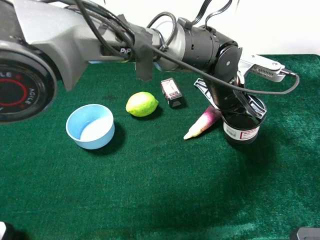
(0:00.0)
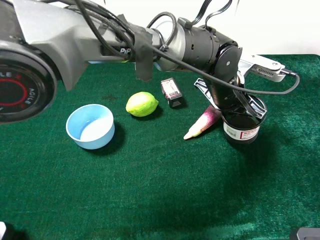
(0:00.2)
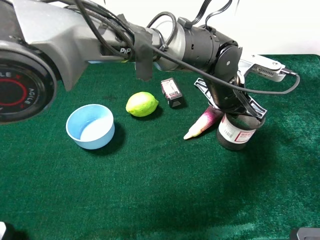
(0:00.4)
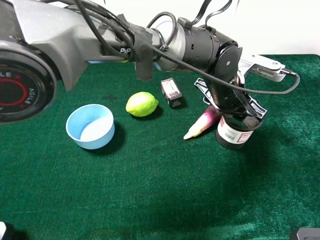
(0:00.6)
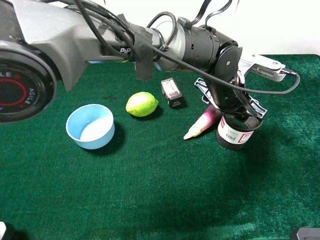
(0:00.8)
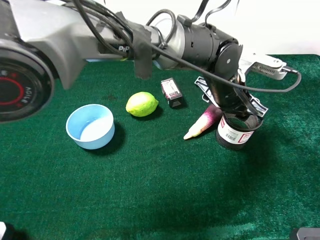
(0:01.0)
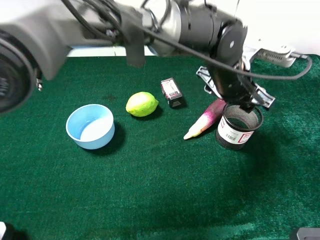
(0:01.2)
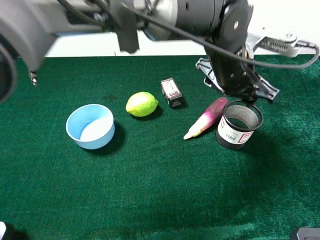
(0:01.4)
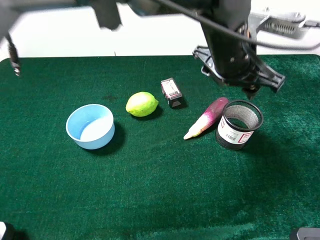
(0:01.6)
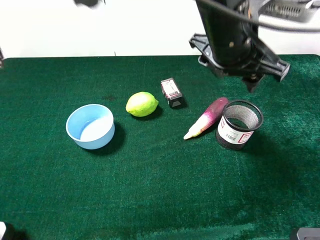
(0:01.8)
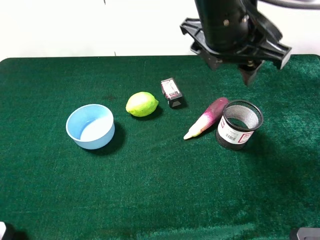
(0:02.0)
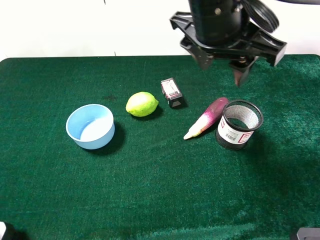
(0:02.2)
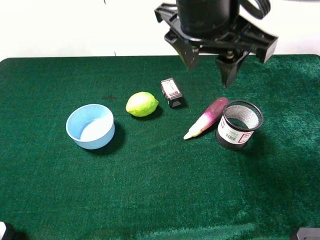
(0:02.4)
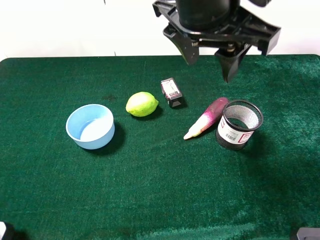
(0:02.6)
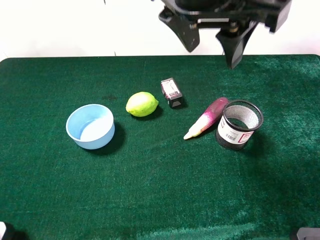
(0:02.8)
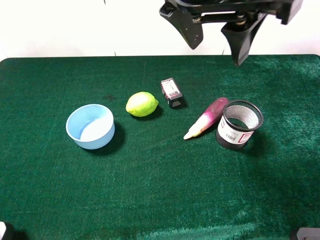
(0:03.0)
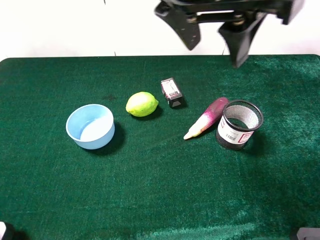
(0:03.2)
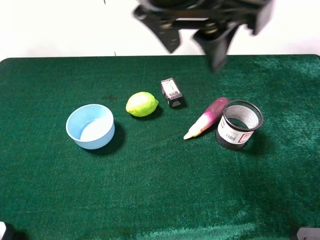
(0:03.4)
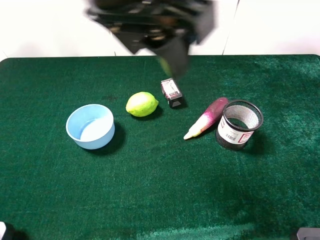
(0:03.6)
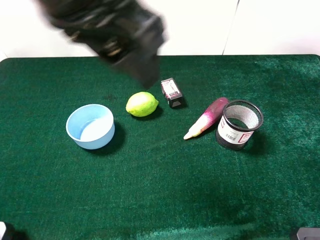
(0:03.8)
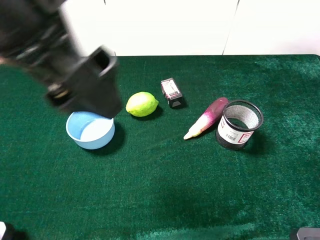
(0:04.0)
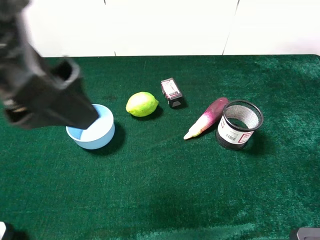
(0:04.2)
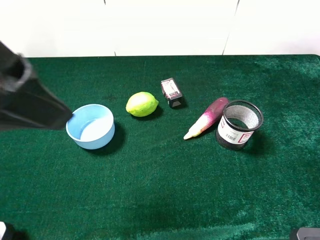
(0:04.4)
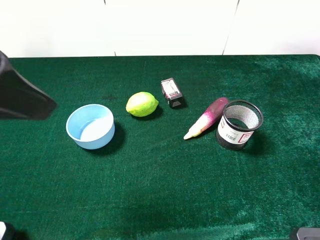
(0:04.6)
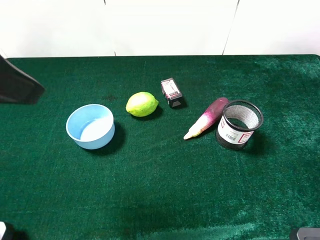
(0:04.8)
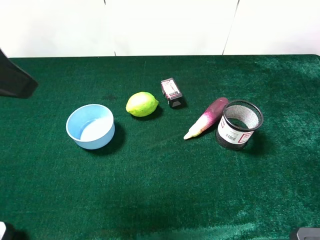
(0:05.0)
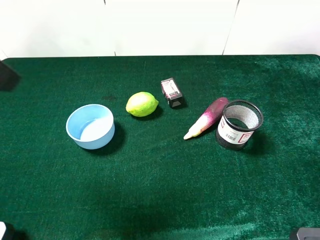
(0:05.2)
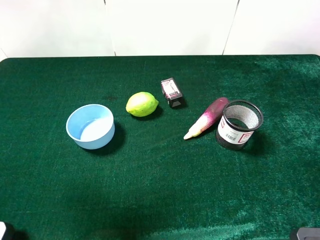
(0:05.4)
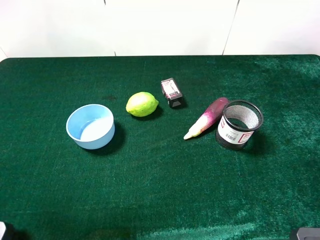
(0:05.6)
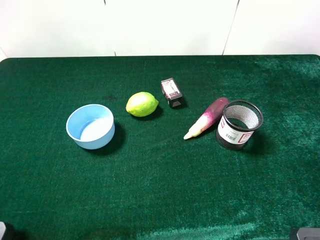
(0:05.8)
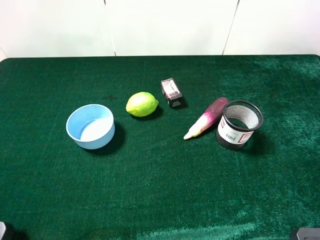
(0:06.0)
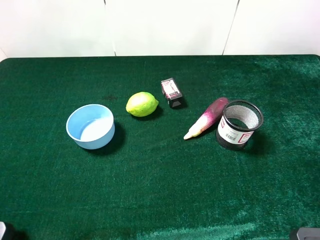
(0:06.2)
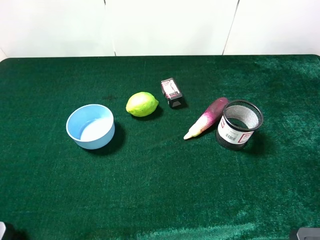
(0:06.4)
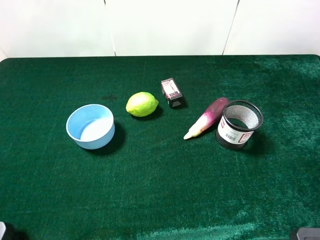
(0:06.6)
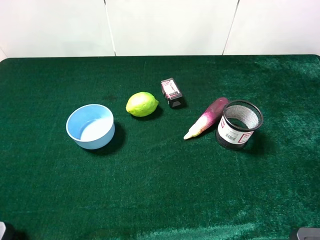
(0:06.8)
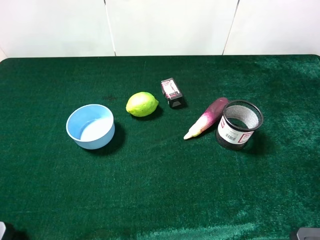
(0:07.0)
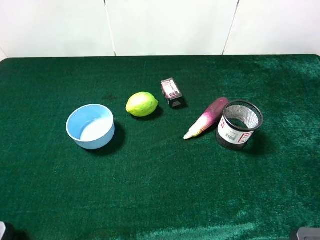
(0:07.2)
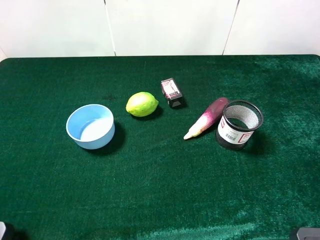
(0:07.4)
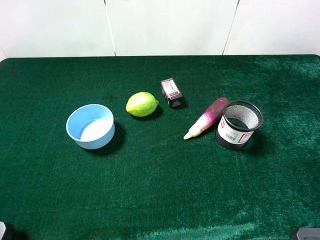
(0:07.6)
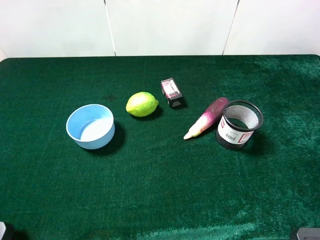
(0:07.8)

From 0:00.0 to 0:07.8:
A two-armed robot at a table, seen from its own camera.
Task of the whole recording: the gripper move the object.
From 0:00.0 to 0:01.6: The left gripper shifts about 10 cm upward, and opens up.
From 0:01.6 to 0:03.2: The left gripper heads upward, to the left and backward, covering some 15 cm.
From 0:03.2 to 0:04.6: The left gripper goes approximately 20 cm to the left and backward, and opens.
From 0:04.6 to 0:06.2: The left gripper goes approximately 20 cm to the left, downward and backward.

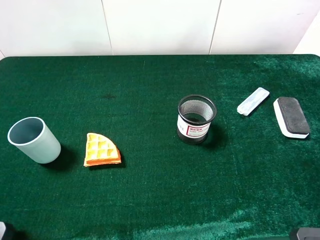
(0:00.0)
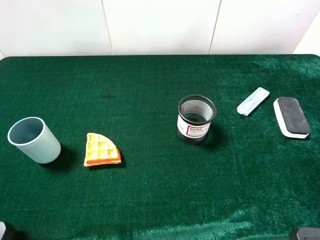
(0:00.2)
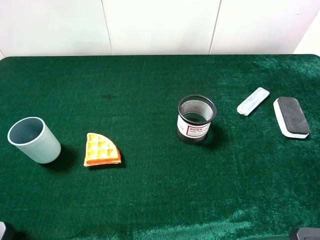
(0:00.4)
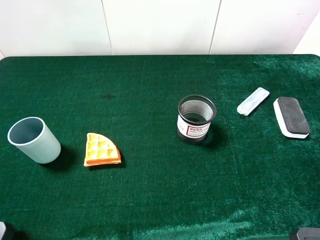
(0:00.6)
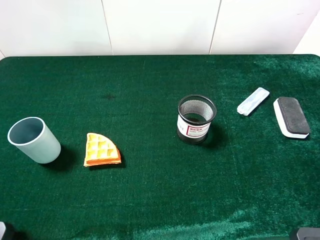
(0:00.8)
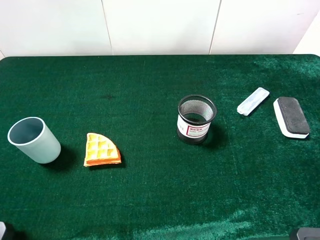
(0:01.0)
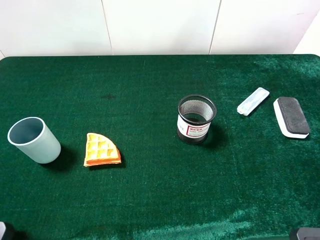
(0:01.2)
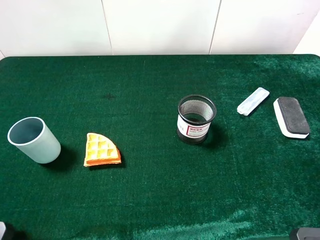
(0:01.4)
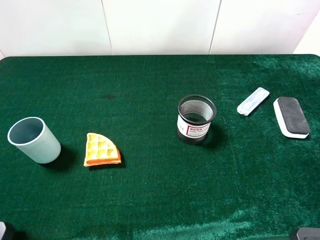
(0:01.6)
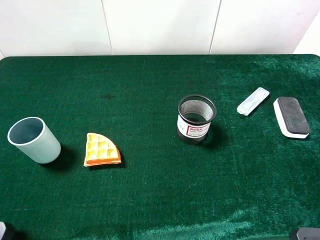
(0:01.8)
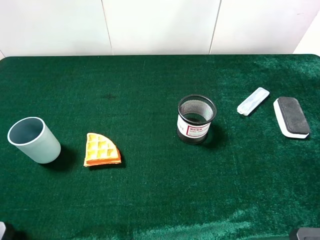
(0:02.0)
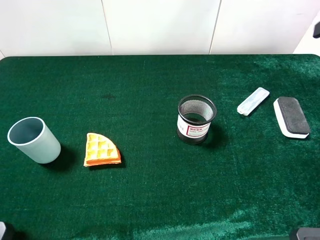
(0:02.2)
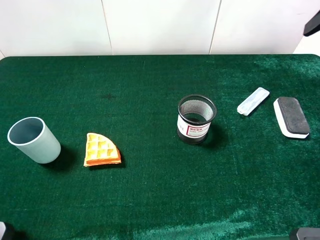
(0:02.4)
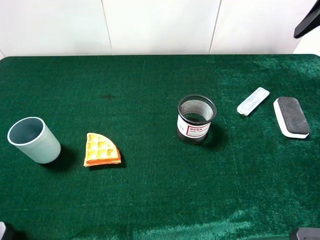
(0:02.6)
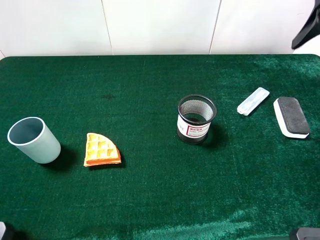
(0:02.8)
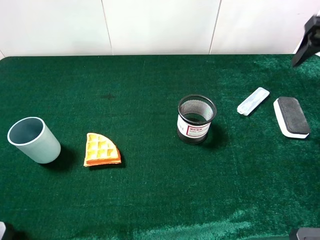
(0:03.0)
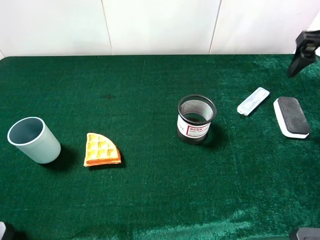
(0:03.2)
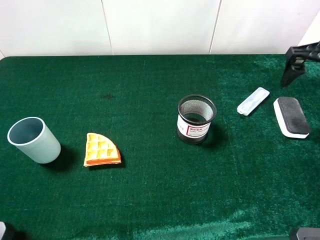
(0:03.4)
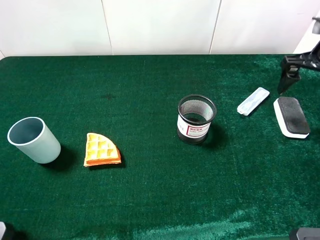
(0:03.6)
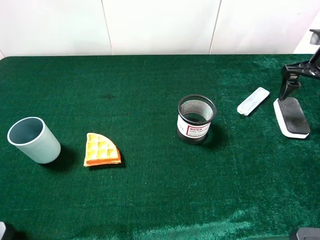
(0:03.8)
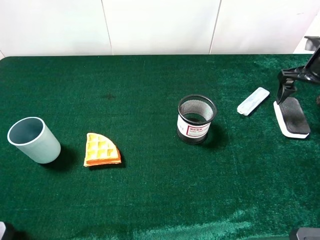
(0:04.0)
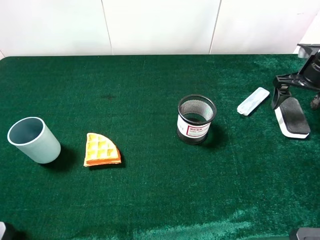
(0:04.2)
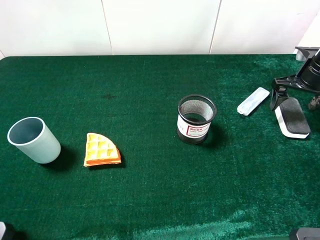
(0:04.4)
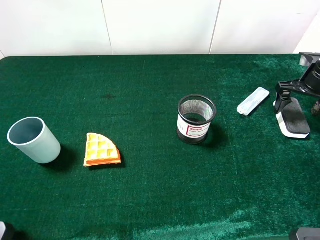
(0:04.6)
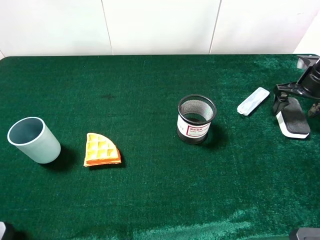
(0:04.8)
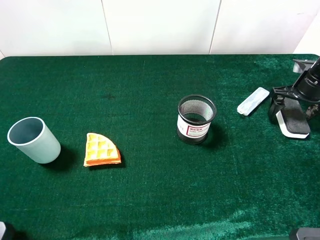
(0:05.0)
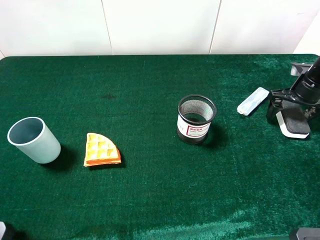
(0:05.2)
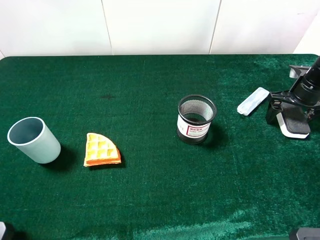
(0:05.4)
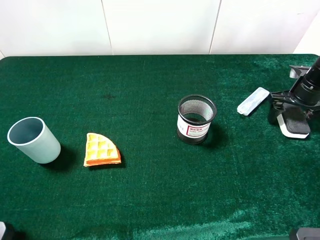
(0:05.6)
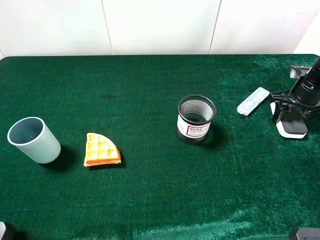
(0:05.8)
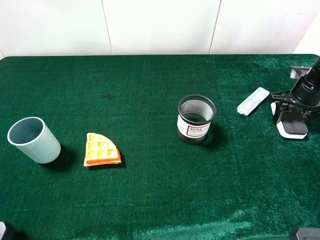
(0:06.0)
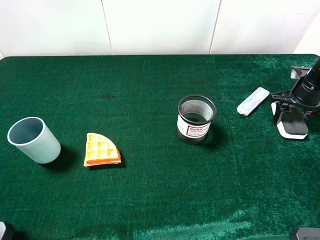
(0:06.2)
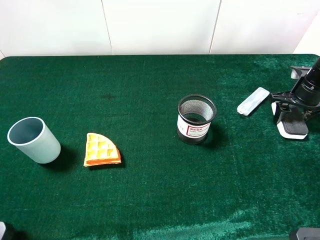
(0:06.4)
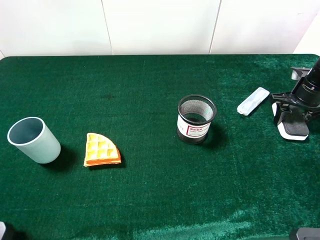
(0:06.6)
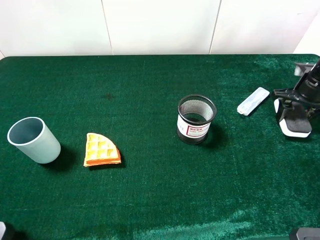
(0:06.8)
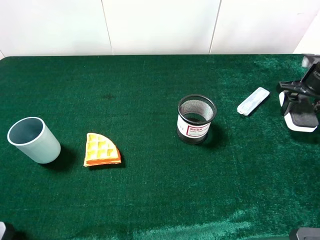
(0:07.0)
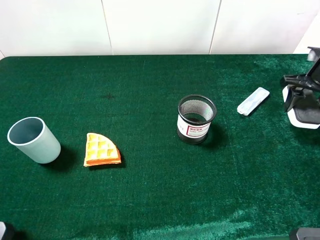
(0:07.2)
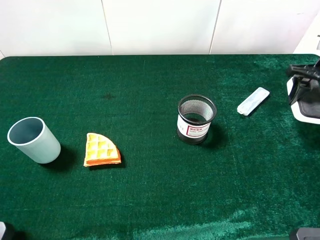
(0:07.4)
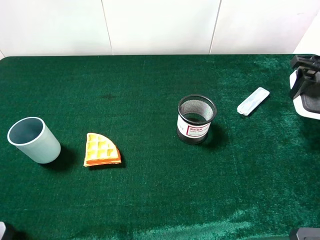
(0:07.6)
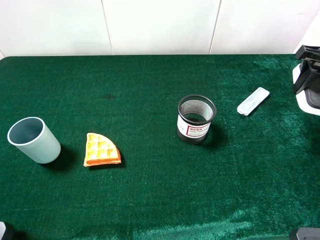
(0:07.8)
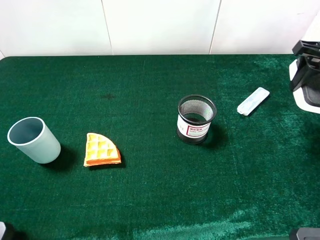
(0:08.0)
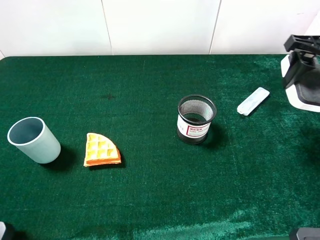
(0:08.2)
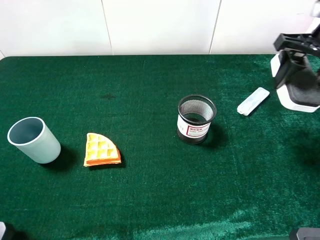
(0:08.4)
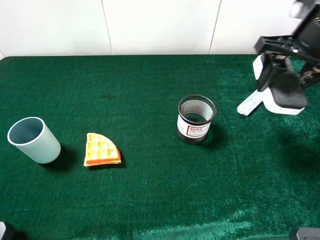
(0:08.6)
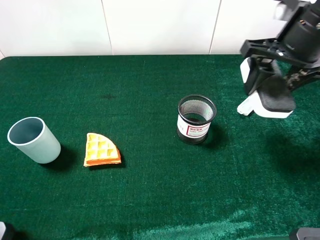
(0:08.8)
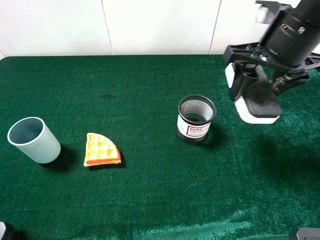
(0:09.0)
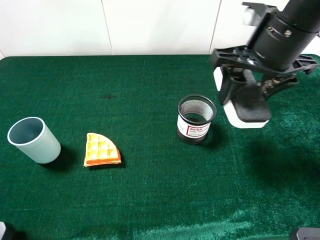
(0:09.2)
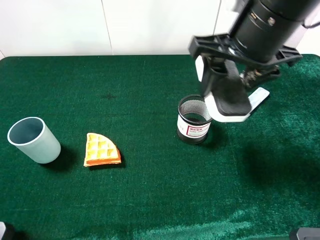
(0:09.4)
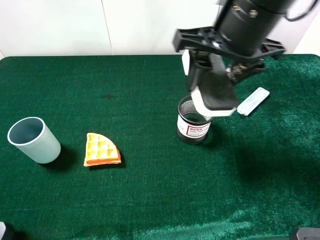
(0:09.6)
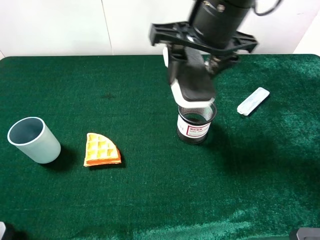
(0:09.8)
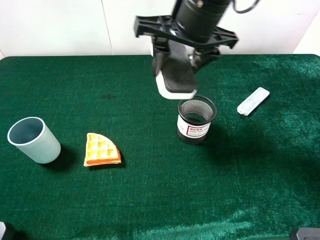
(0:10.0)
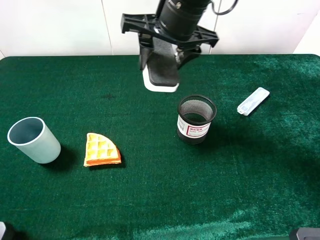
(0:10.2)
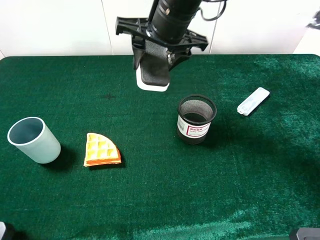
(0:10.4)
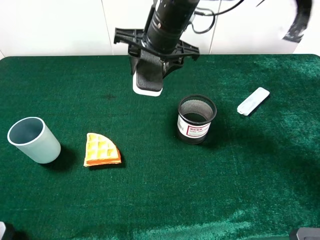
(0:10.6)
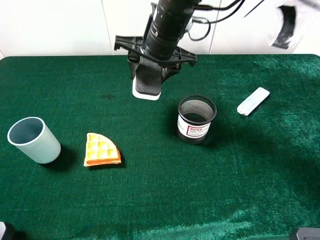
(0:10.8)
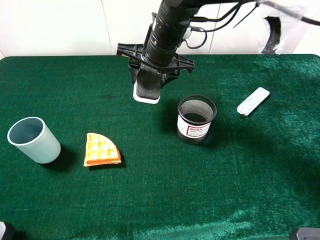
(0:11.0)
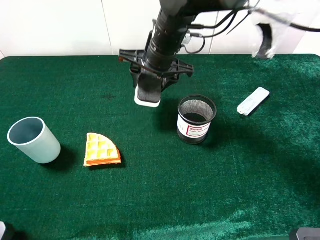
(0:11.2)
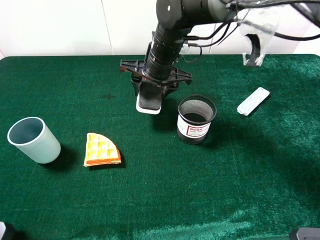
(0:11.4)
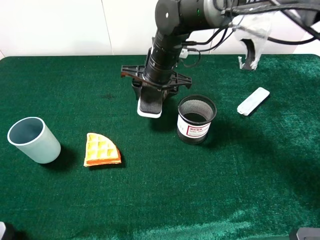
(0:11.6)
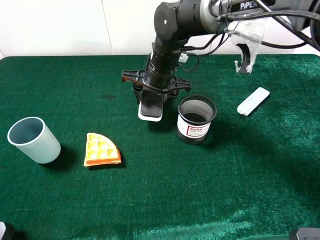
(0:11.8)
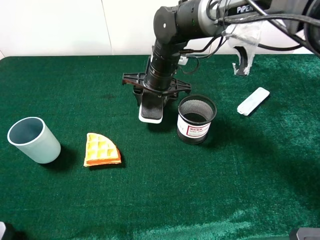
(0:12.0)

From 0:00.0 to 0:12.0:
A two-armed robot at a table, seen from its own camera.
Task of the whole recording: the gripper move the object.
Step, from 0:00.0 to 0:06.0: Grasp the white blackboard earser with the right gripper.
From 0:01.6 to 0:03.0: The right gripper is displaced forward by approximately 20 cm.
From 0:03.0 to 0:04.4: The right gripper heads downward and forward, covering about 15 cm.
From 0:04.4 to 0:06.0: The right gripper shifts by approximately 5 cm, and closes its fingers.
From 0:06.0 to 0:07.6: The right gripper is displaced upward by roughly 10 cm.
From 0:07.6 to 0:09.0: The right gripper moves to the left and backward, approximately 20 cm.
From 0:09.0 to 0:10.4: The right gripper travels to the left and forward by about 15 cm.
From 0:10.4 to 0:12.0: The right gripper goes roughly 15 cm downward.

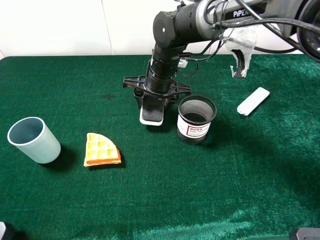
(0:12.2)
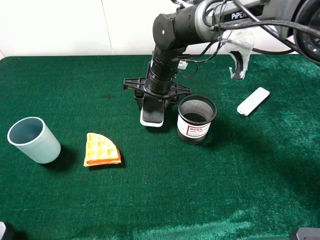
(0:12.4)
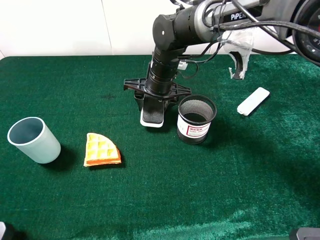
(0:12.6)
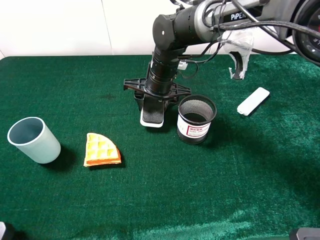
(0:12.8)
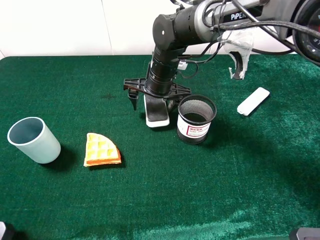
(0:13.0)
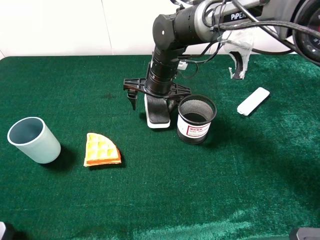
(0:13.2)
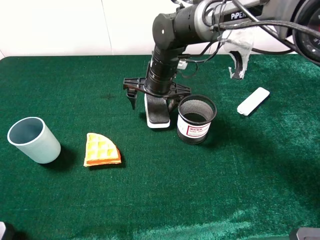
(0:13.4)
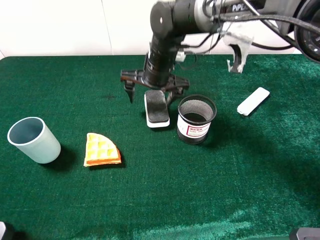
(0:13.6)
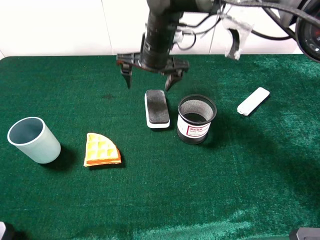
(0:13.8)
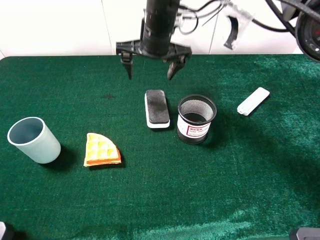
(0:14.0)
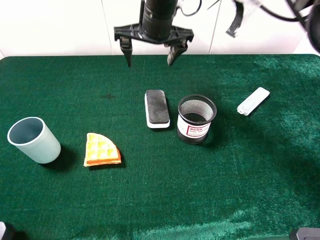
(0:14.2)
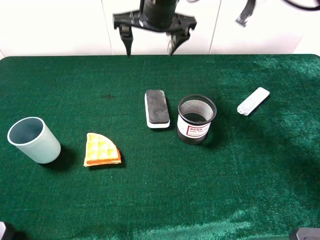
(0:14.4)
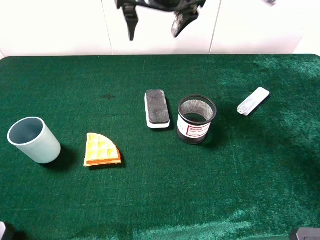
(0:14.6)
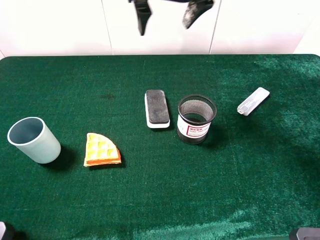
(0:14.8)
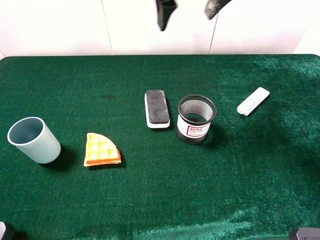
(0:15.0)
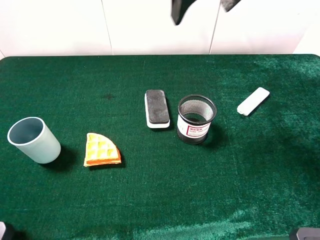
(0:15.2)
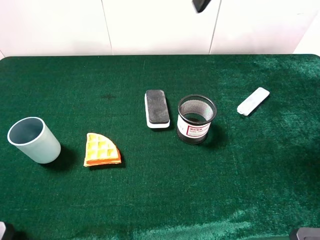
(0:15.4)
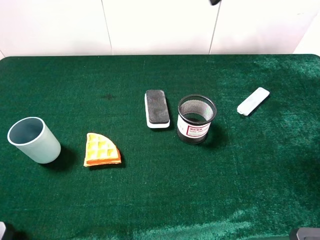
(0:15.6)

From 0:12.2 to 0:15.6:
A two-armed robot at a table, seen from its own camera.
Task of the whole recording: the gripper move the object.
From 0:12.2 to 0:13.8: The right gripper travels upward by some 5 cm, and opens.
From 0:13.8 to 0:15.6: The right gripper shifts approximately 30 cm upward, to the right and backward.
